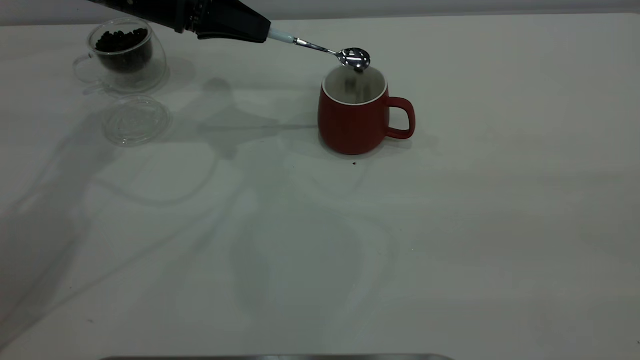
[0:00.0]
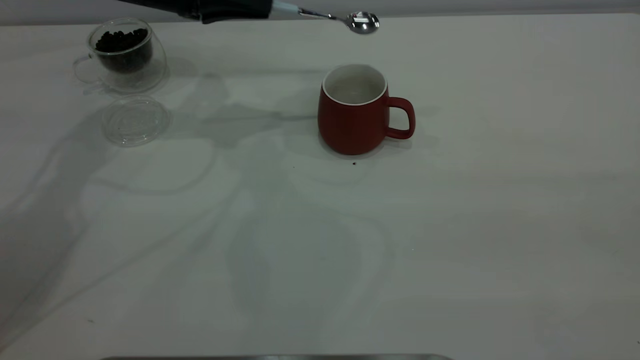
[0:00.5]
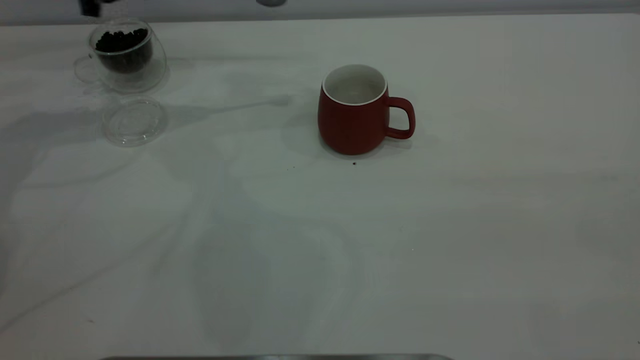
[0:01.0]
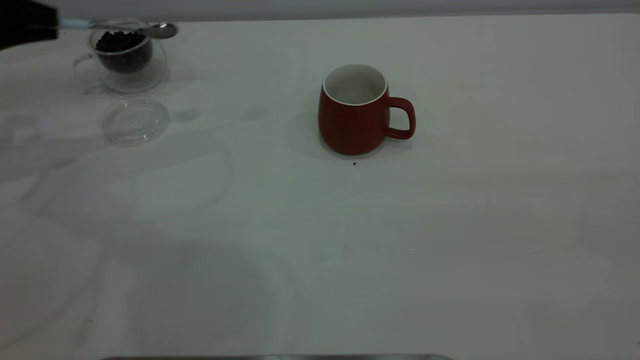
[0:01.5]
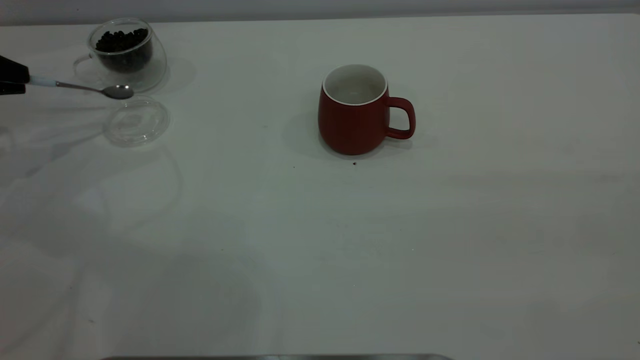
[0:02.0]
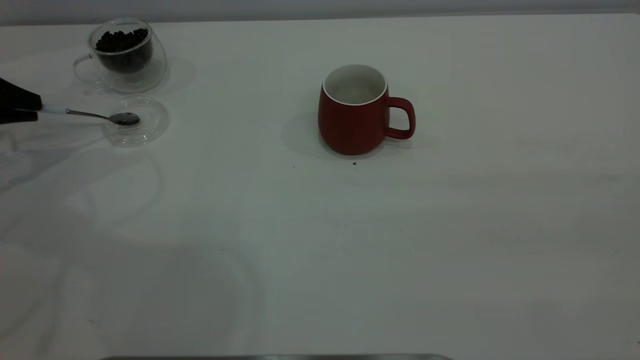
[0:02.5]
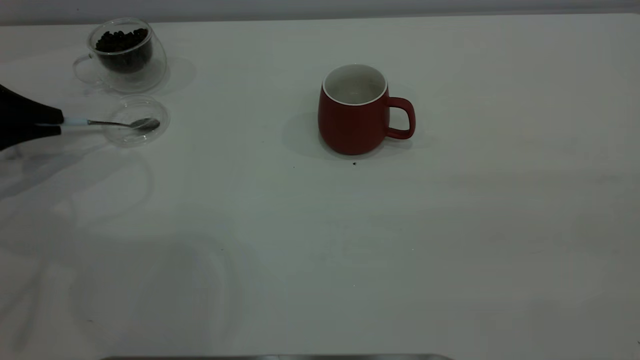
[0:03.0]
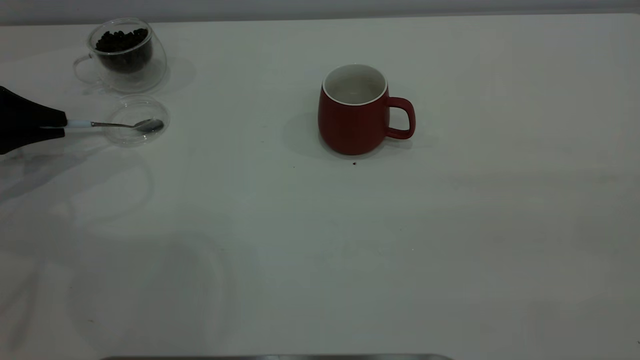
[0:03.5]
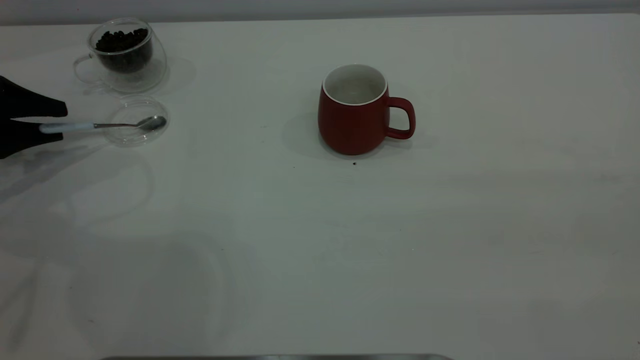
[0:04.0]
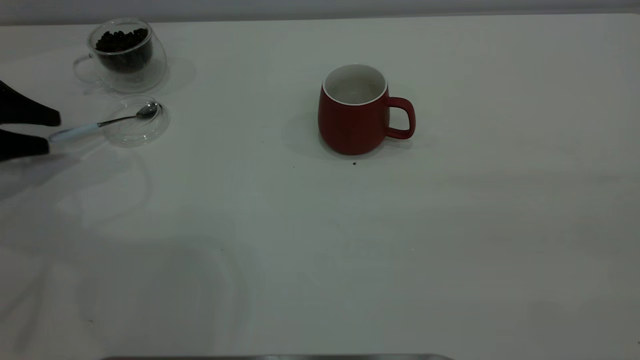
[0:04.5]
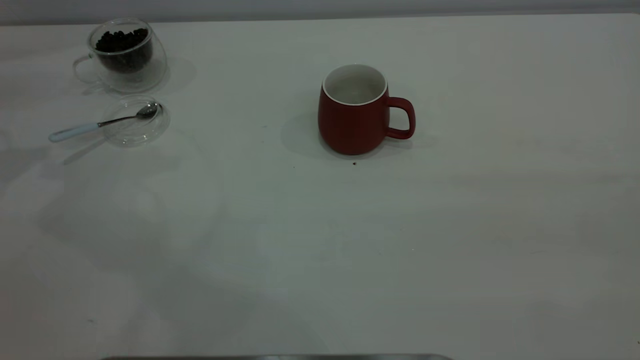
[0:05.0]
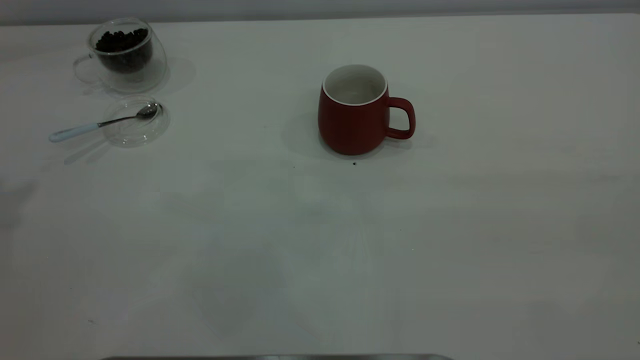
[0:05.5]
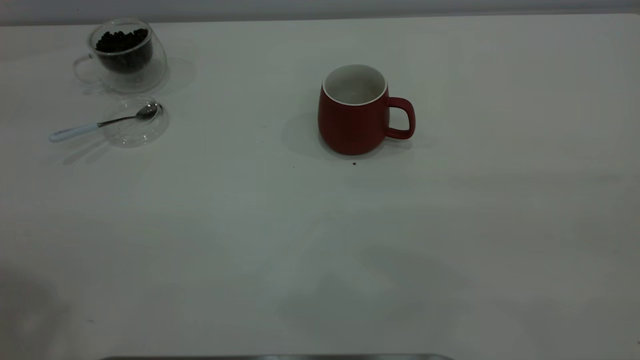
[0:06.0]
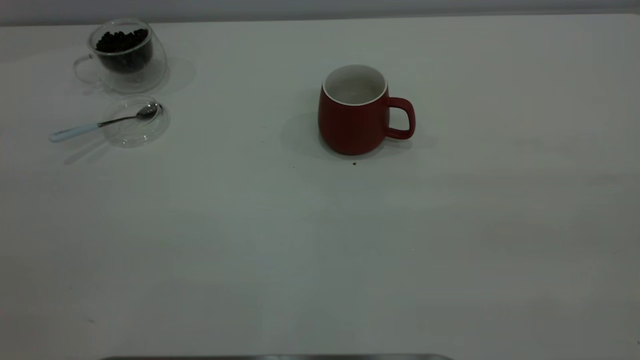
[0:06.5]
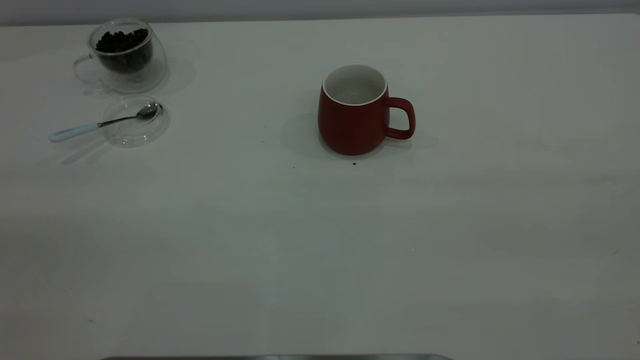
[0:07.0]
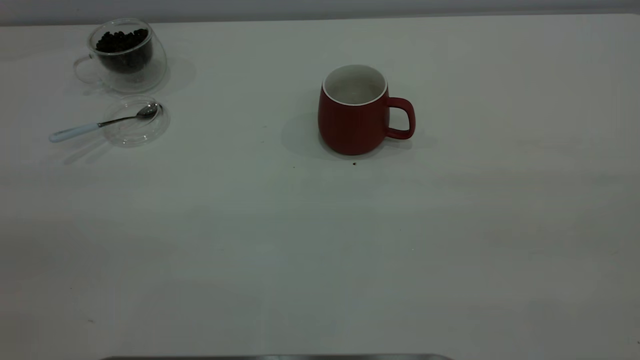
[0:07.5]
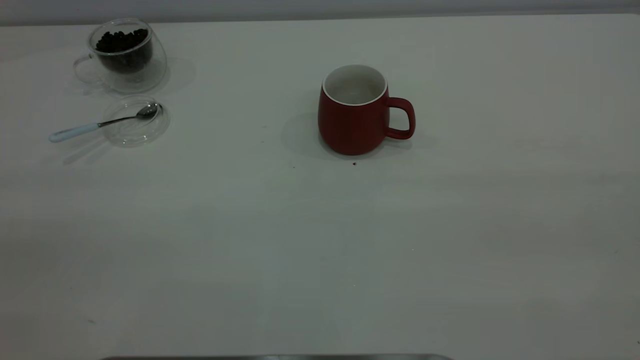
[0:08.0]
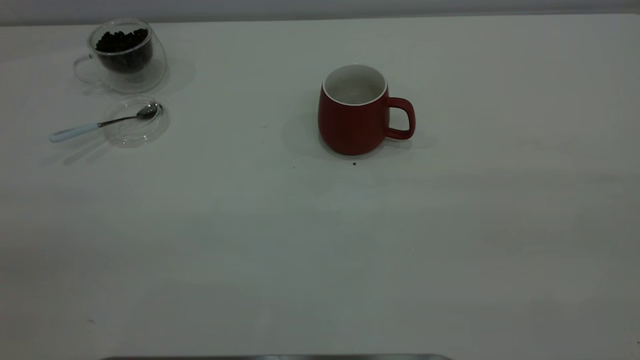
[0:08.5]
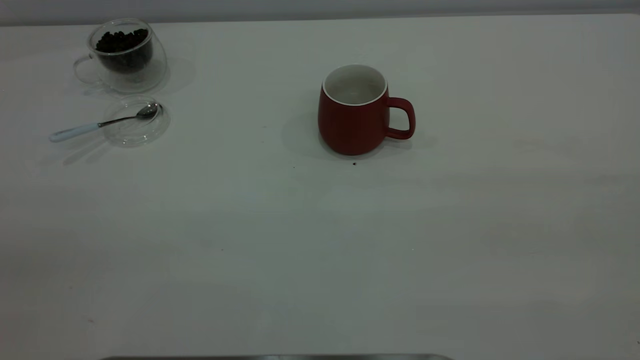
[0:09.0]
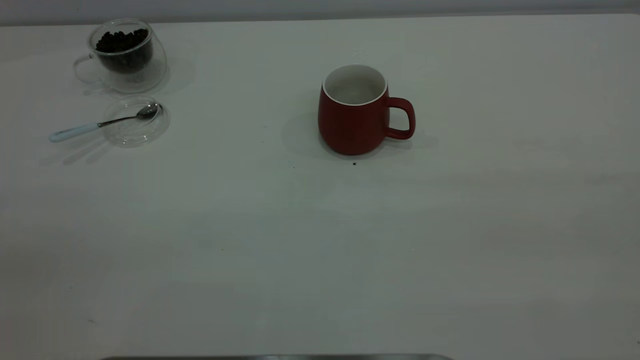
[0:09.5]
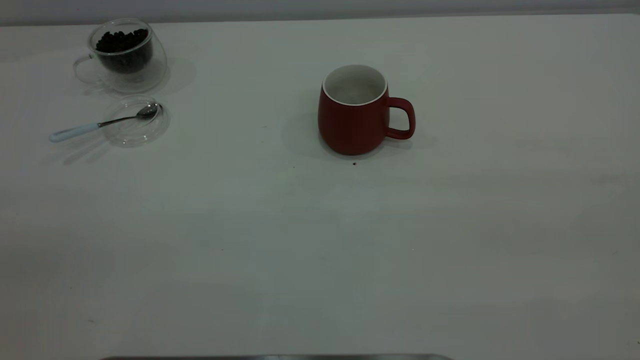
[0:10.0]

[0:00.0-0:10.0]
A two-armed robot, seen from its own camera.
Task of the whole recording: the right gripper place the red cup in the center of the table, the left gripper take the blue spoon from the cup lid and scoop out the coffee beans from the coffee cup and put them into the red cup, the left gripper put the spoon back into the cup lid.
Step, 0:00.5 to 0:04.5: Place the spoon back in its original place.
0:00.0 to 0:02.0: The left gripper is displaced to the left by some 25 cm.
0:02.0 to 0:04.0: The left gripper goes roughly 5 cm downward, and opens.
0:04.0 to 0:06.0: The left gripper shifts roughly 40 cm upward and backward.

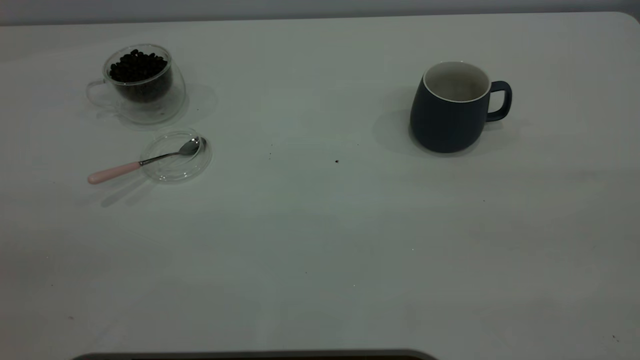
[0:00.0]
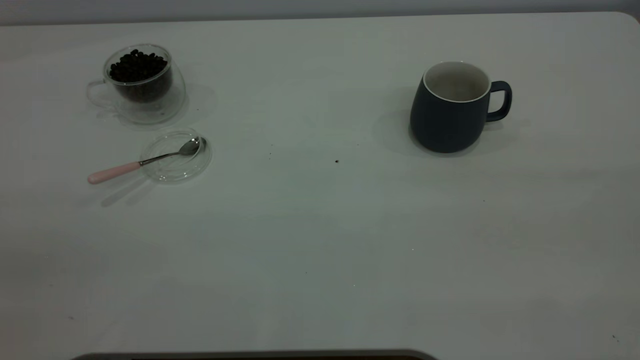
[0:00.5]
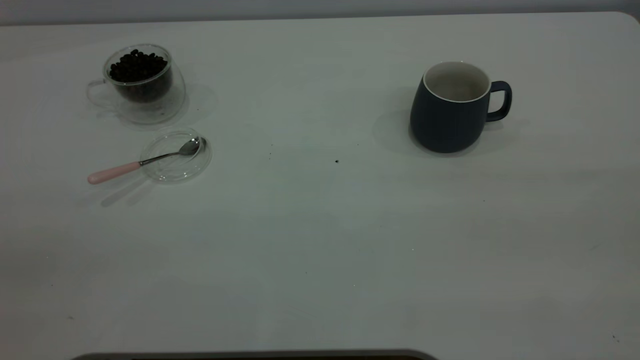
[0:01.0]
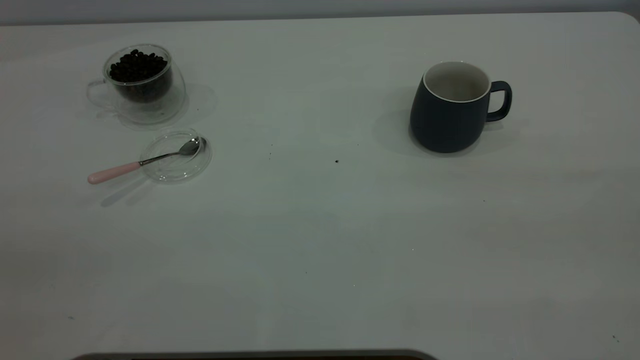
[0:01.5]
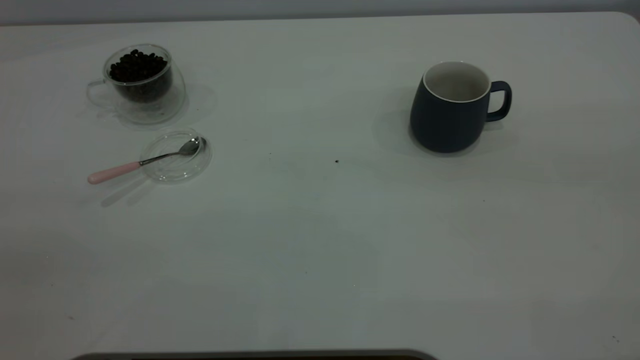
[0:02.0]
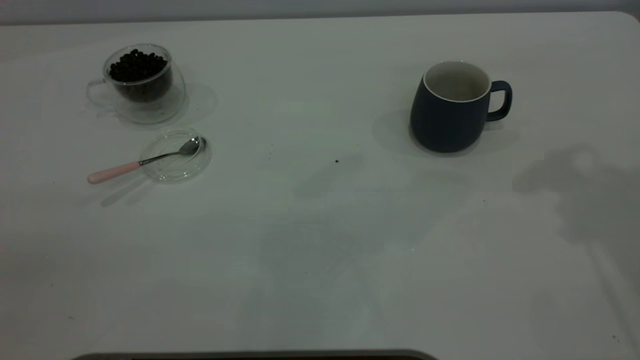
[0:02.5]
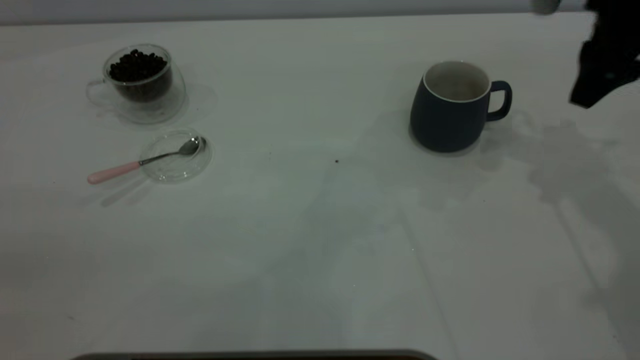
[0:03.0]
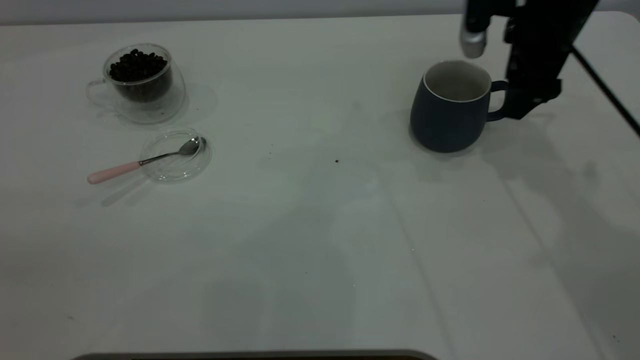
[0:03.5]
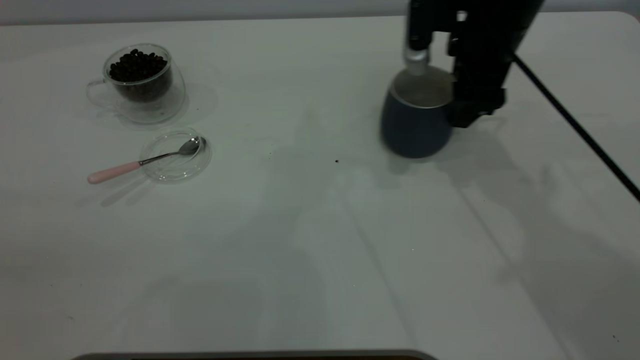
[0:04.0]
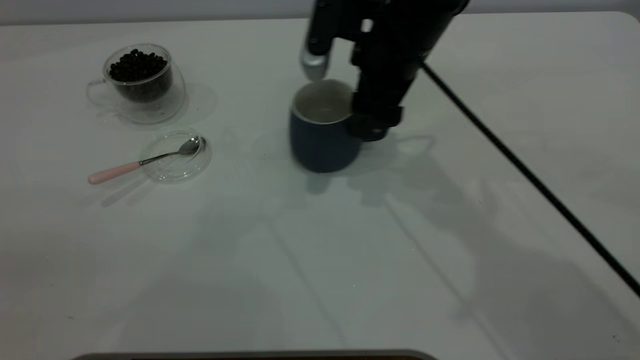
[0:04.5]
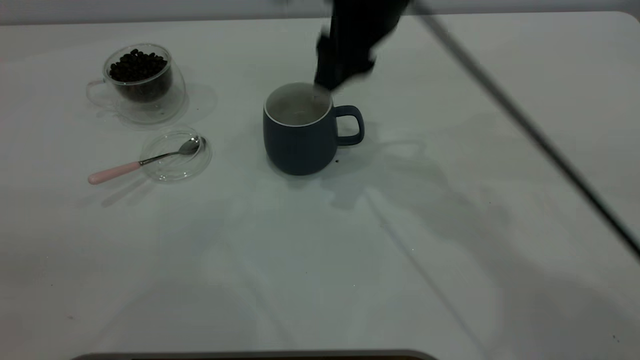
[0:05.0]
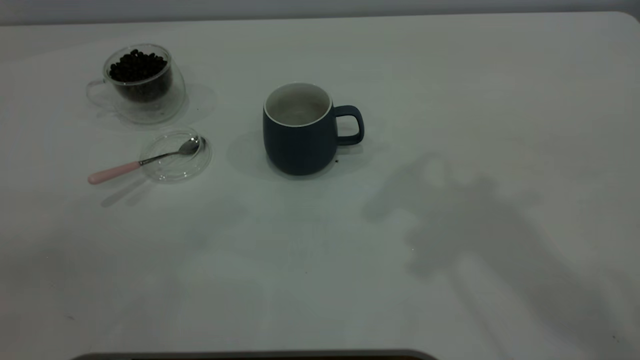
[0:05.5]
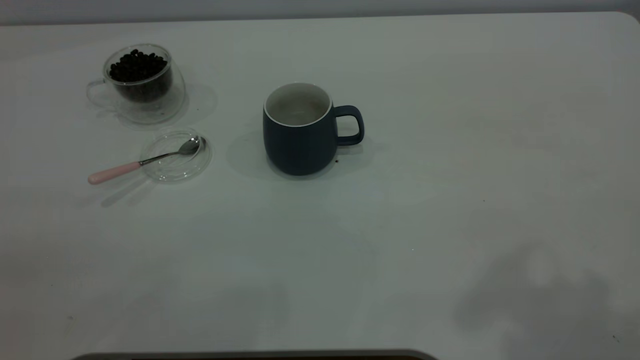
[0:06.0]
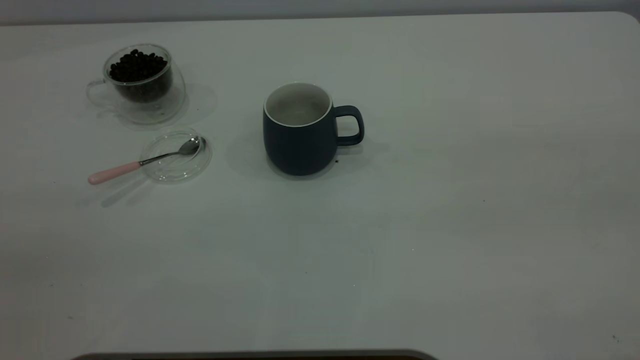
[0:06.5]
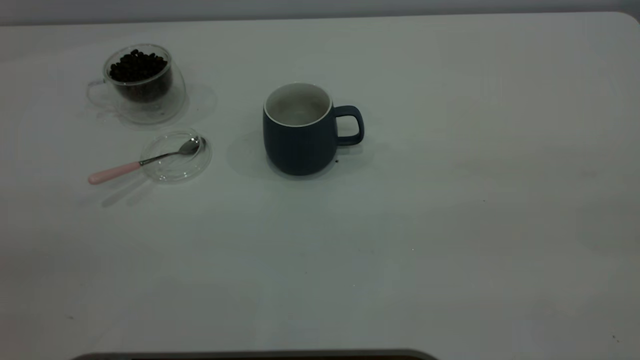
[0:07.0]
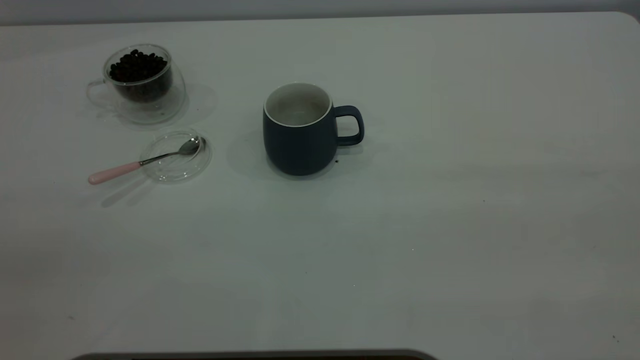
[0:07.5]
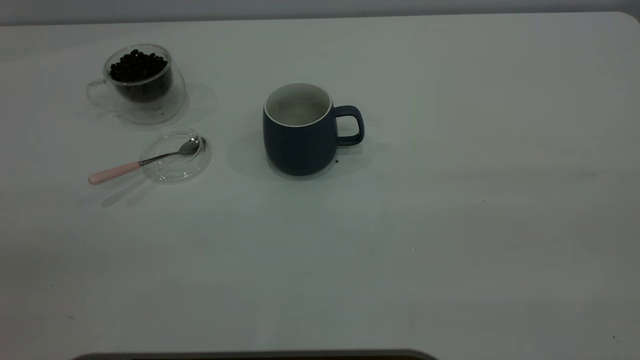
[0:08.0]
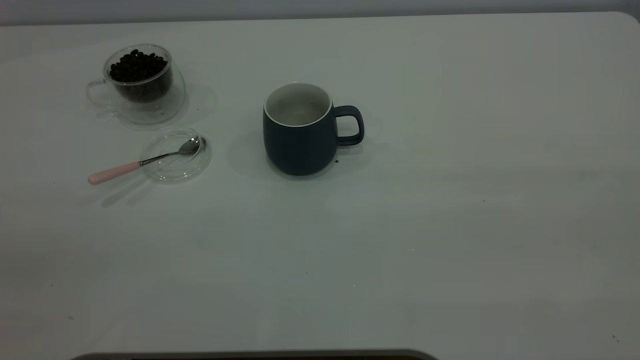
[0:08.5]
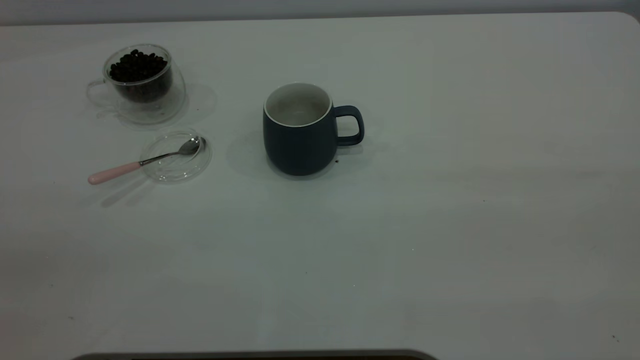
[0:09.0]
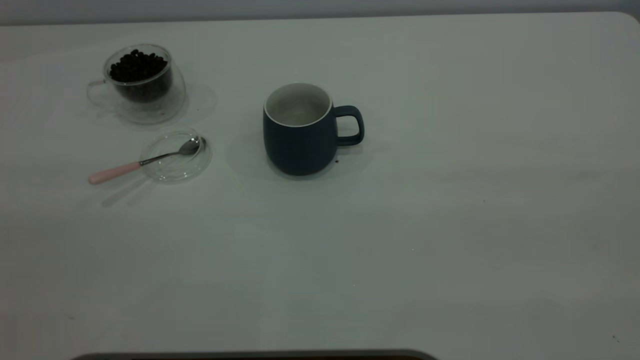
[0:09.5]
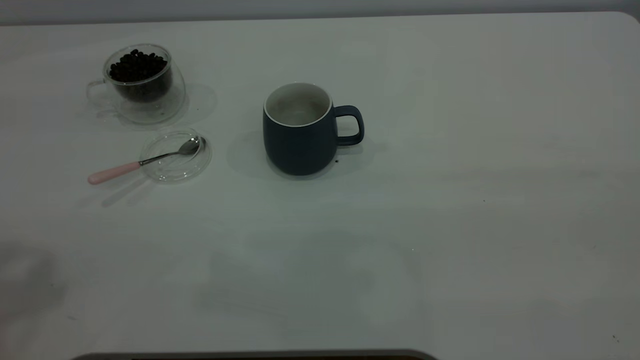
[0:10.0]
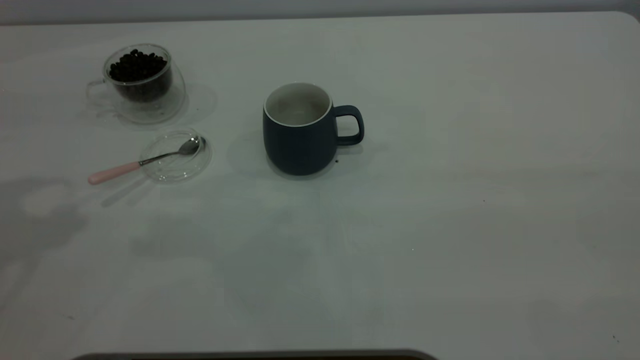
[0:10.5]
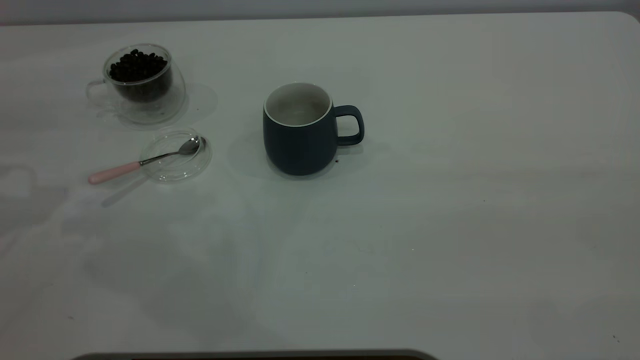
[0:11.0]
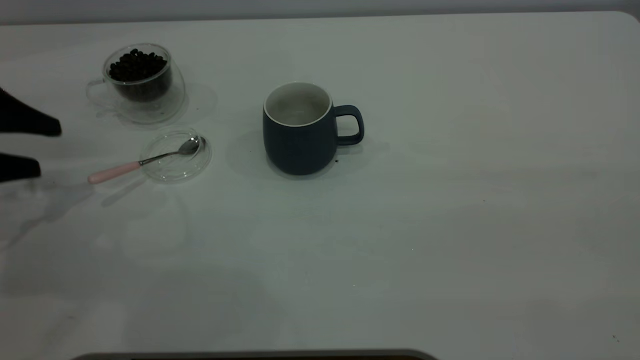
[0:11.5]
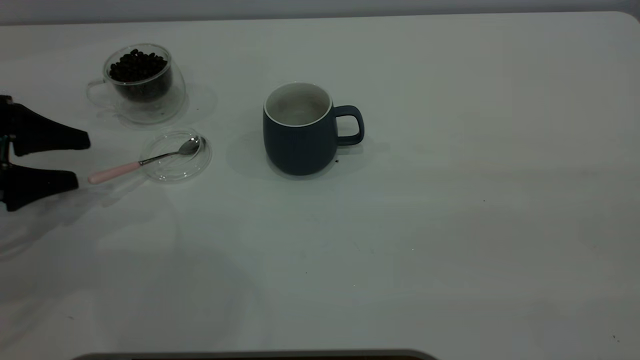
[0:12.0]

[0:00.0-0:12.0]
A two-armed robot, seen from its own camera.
Task of the whole recording: the right gripper place the grey cup in the center of the table, the left gripper take the pink spoon from the cup lid and scoop out the coffee beans from the coffee cup and put them into the grey cup, the left gripper put the spoon back into the cup lid.
Step, 0:00.0 to 0:04.5: Move the cup to the center of view.
0:02.0 to 0:04.0: The right gripper heads forward, downward and to the left, covering some 40 cm.
0:04.0 to 0:06.0: The right gripper shifts roughly 40 cm upward and backward.
0:10.0 to 0:12.0: The left gripper shifts about 35 cm downward.
